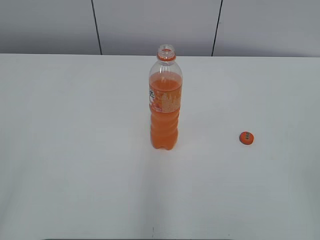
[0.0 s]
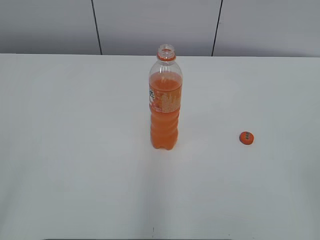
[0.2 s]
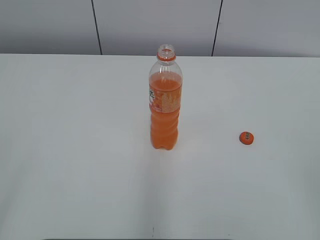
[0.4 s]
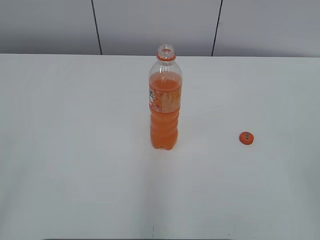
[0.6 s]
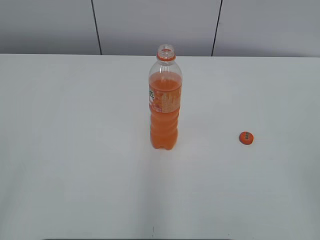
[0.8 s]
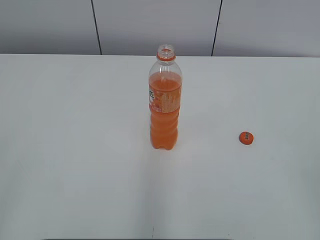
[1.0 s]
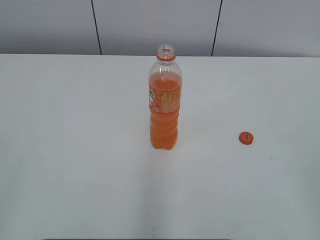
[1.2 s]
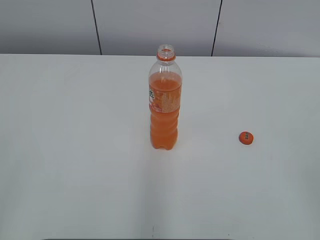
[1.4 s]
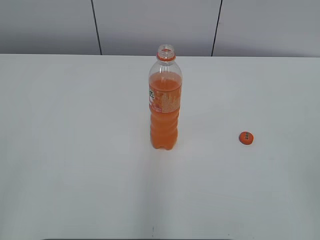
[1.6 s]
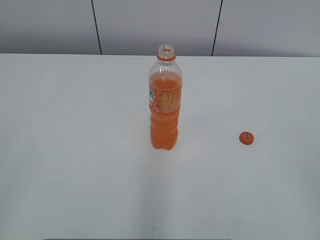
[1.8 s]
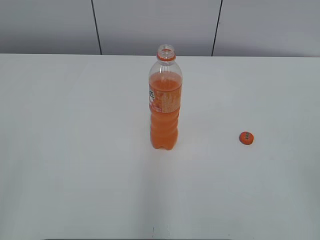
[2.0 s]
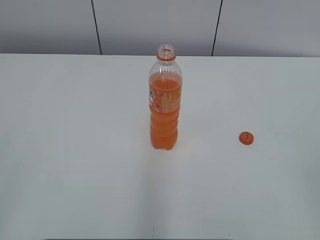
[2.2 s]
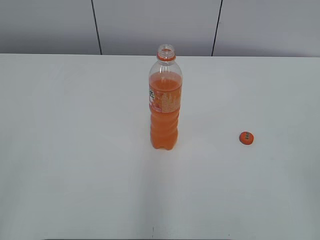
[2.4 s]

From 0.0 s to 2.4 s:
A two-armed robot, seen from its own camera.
From 1.2 s to 2.4 s: Both grippers stay about where they are.

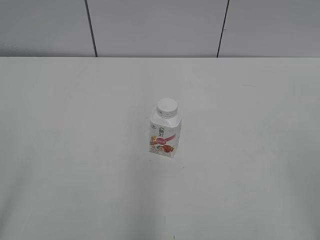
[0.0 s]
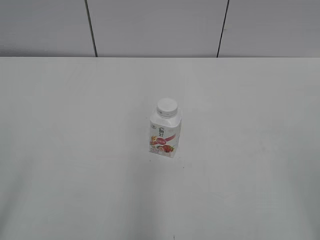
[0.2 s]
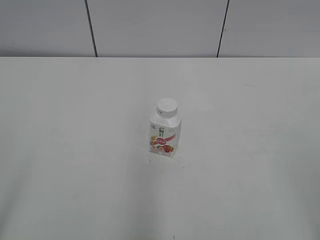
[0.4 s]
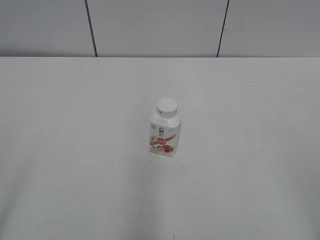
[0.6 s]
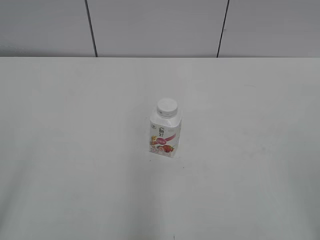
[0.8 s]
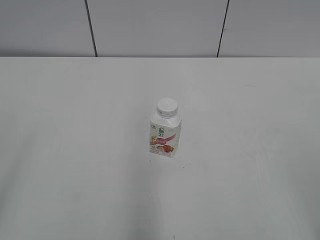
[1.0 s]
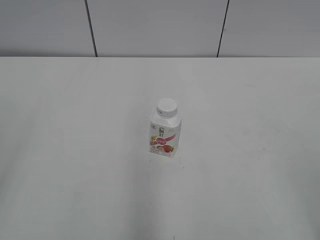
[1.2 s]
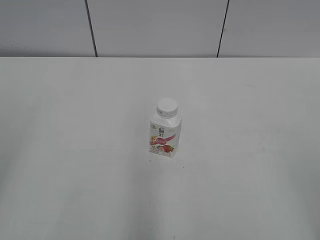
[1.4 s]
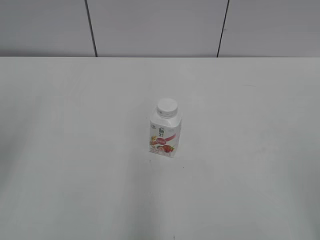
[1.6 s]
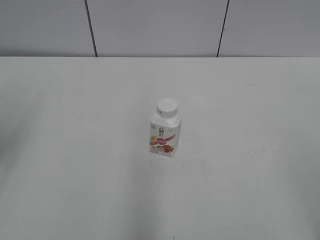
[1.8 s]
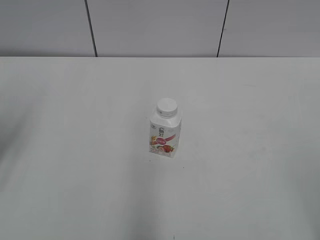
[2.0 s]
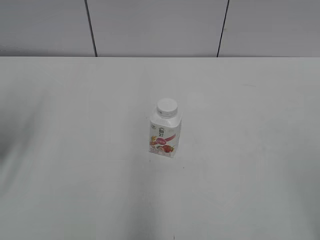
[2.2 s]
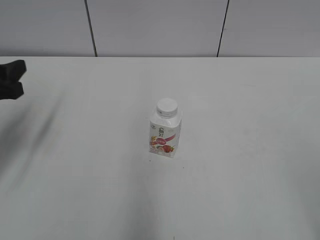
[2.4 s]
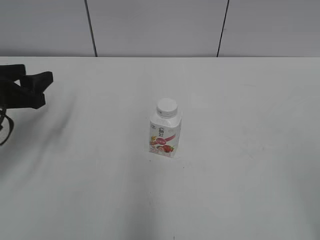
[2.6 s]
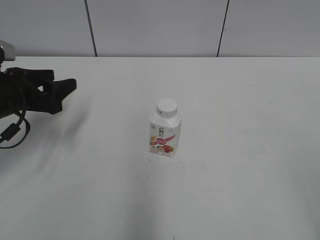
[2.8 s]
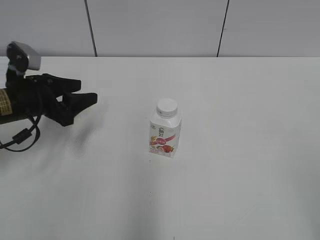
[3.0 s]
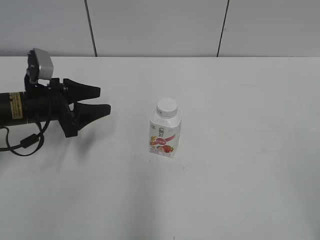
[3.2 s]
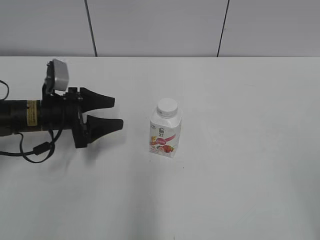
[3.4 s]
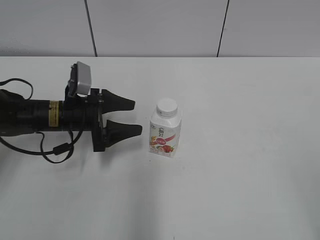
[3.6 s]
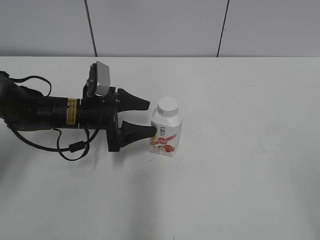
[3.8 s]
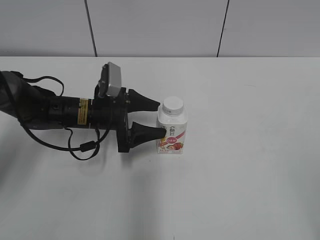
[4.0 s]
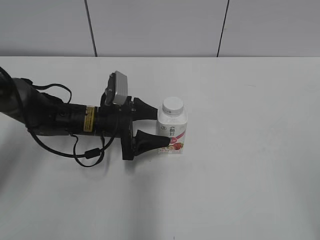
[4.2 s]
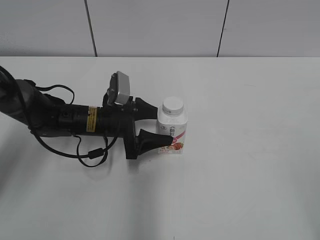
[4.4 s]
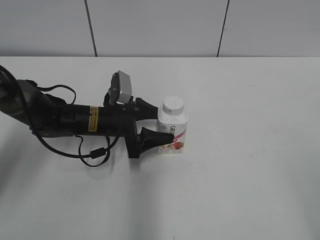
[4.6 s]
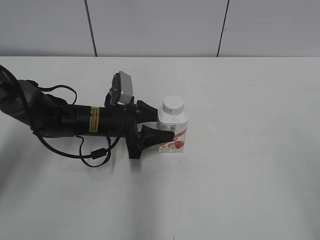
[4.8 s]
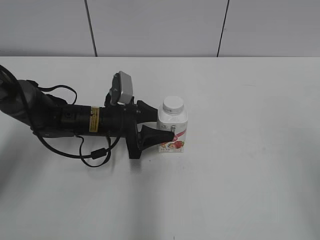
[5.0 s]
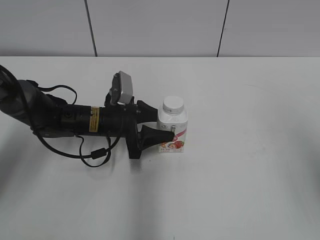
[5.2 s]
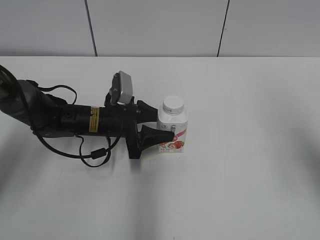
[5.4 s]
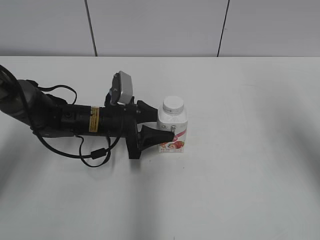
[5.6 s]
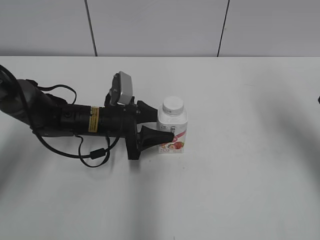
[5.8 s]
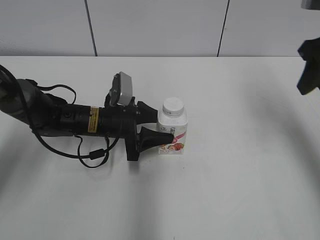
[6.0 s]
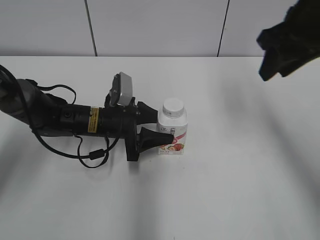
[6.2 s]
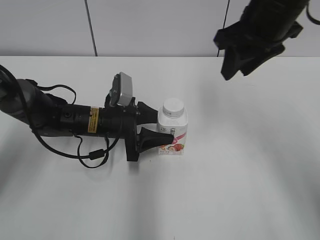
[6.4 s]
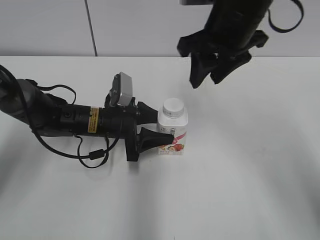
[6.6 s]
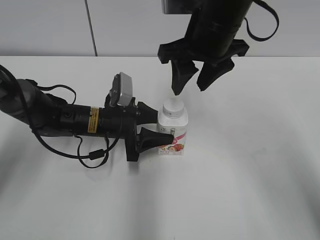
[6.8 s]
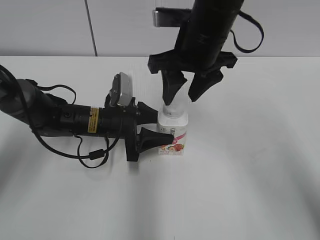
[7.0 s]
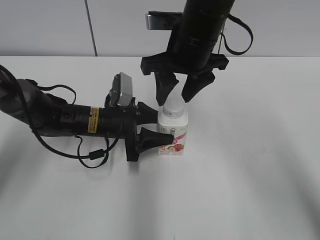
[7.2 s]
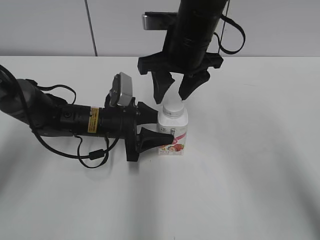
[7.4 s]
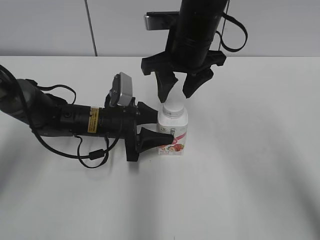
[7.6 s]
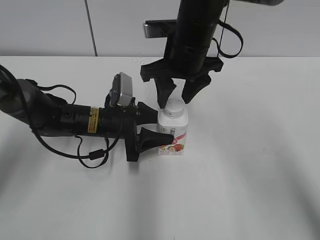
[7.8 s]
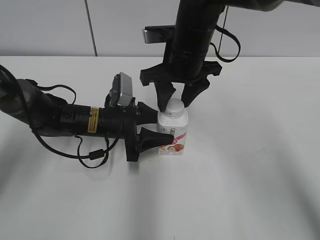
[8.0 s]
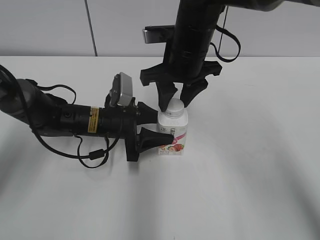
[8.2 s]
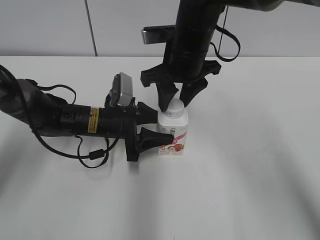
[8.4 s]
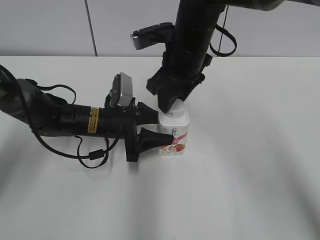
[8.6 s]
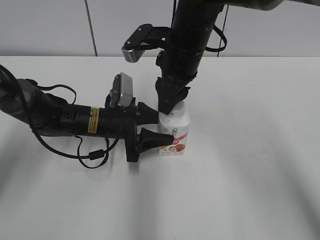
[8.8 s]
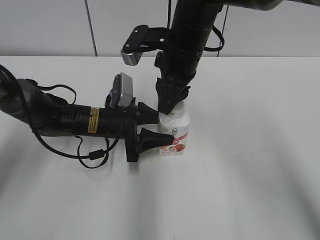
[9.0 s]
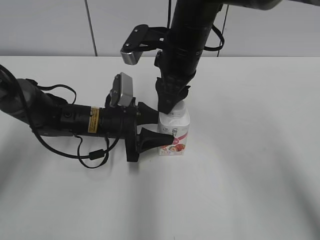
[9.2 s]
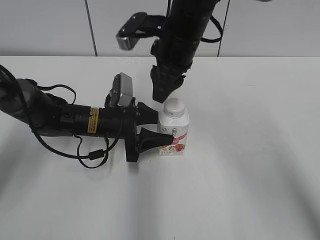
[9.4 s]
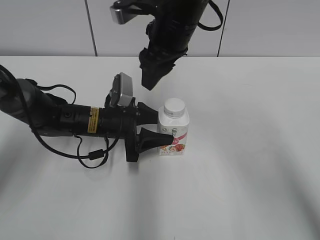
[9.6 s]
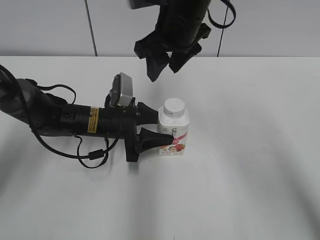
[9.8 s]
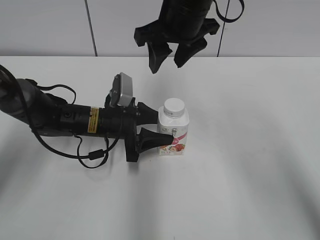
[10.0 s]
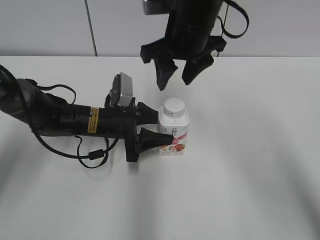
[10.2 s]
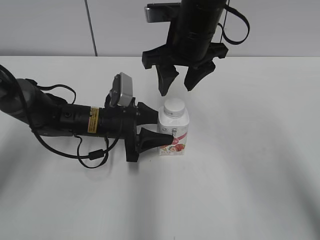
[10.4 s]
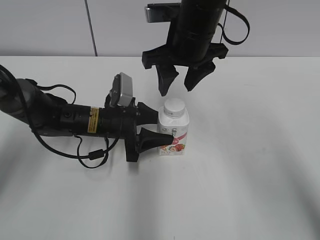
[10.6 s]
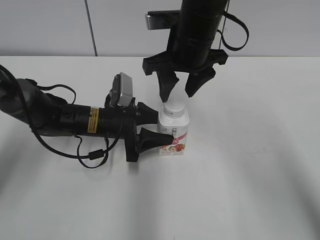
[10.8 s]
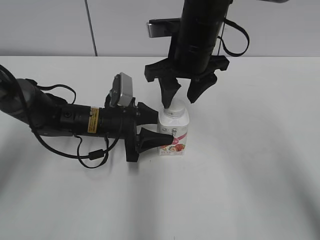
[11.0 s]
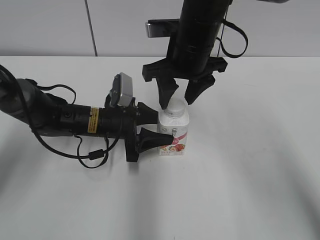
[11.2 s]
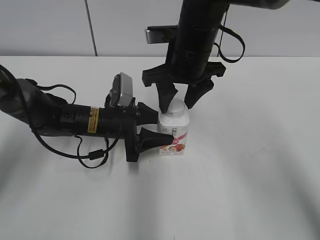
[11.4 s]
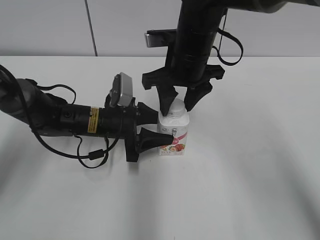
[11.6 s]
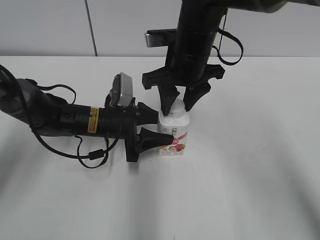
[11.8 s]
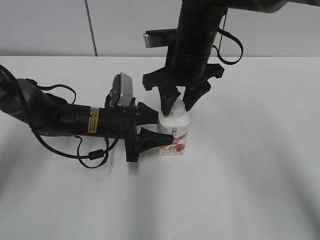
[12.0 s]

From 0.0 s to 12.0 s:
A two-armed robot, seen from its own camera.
Step, from 0.0 s to 5.2 s: Grab the Yili Changqing with the left hand.
From 1.6 s to 3.0 s: The left gripper goes some 25 cm forward and downward, and closes.
From 3.0 s to 4.4 s: The left gripper is displaced to the right and downward by about 15 cm, and opens.
From 4.4 s to 6.0 s: The right gripper moves forward, roughly 30 cm, and closes, while the left gripper closes up.
From 6.0 s to 7.6 s: The right gripper heads to the left, covering roughly 20 cm, and opens.
From 7.6 s to 9.0 s: The right gripper closes its fingers.
From 9.0 s to 10.4 s: The right gripper opens.
From 10.4 s to 12.0 s: The grippers stay close to where they were, moving slightly.

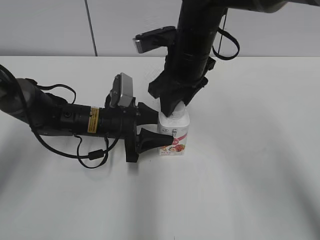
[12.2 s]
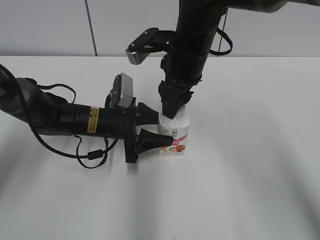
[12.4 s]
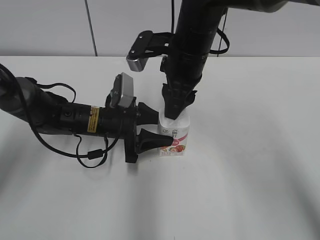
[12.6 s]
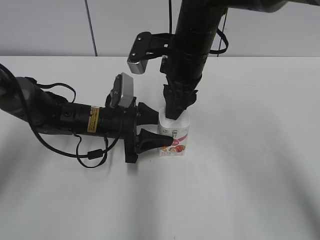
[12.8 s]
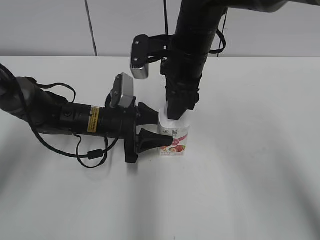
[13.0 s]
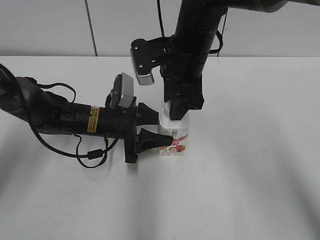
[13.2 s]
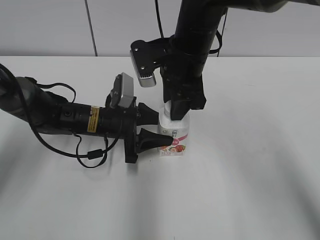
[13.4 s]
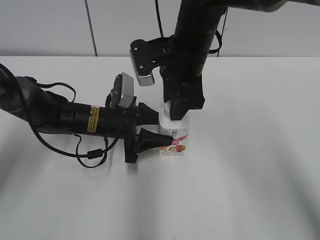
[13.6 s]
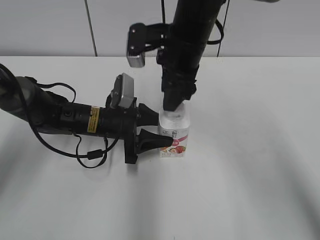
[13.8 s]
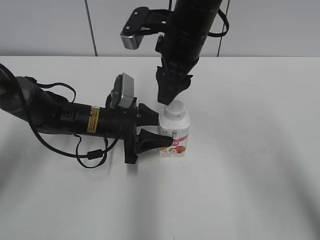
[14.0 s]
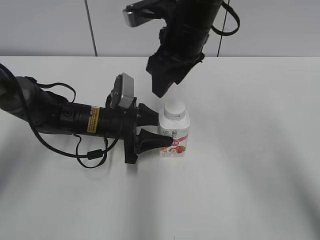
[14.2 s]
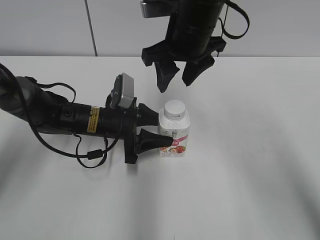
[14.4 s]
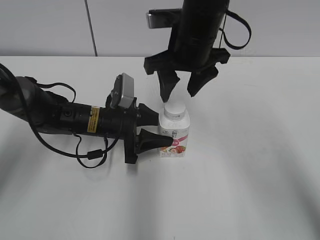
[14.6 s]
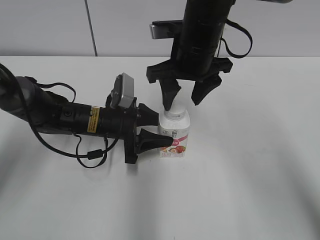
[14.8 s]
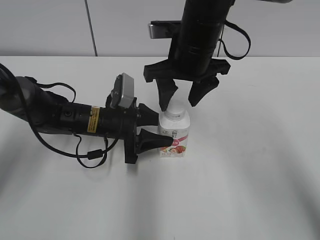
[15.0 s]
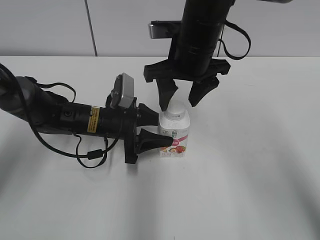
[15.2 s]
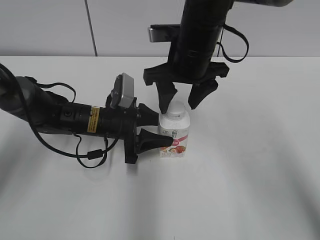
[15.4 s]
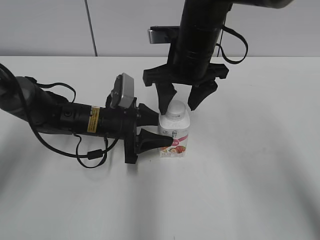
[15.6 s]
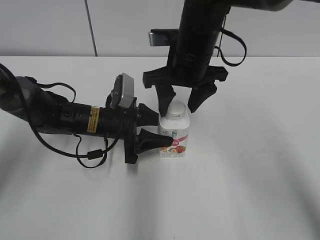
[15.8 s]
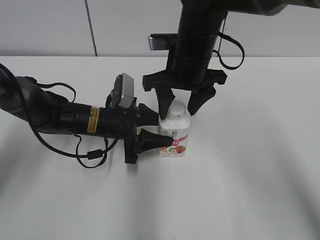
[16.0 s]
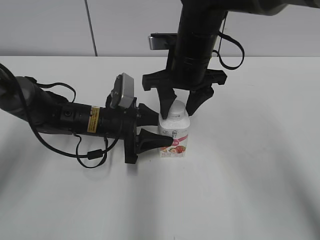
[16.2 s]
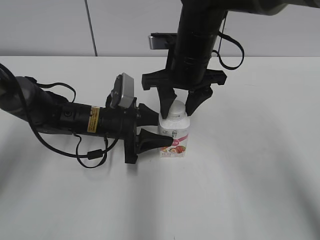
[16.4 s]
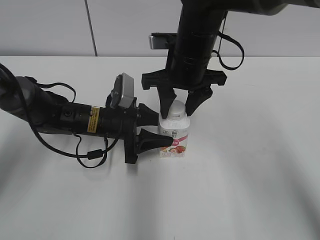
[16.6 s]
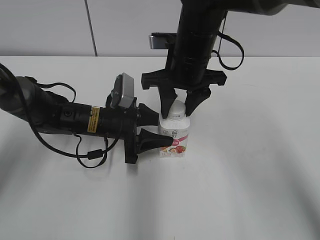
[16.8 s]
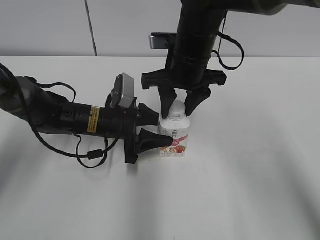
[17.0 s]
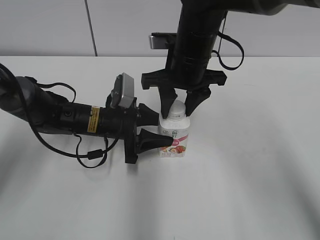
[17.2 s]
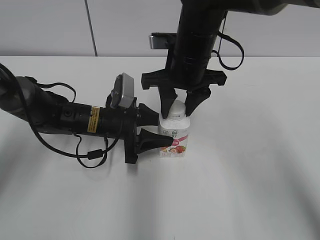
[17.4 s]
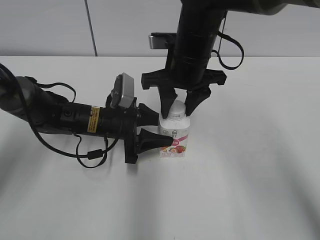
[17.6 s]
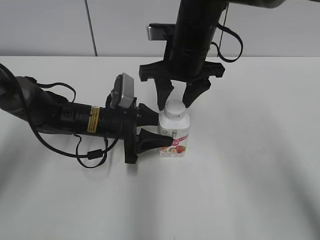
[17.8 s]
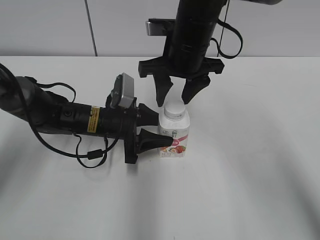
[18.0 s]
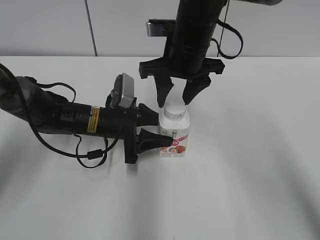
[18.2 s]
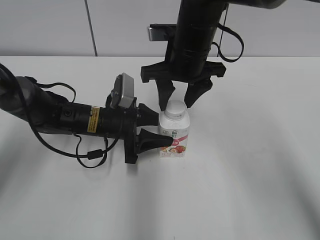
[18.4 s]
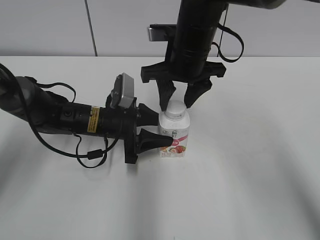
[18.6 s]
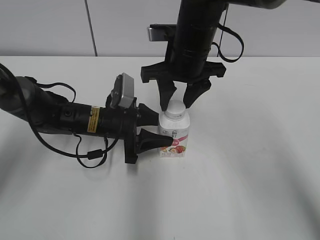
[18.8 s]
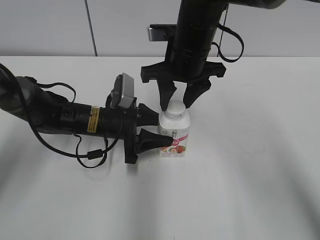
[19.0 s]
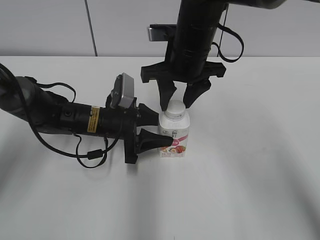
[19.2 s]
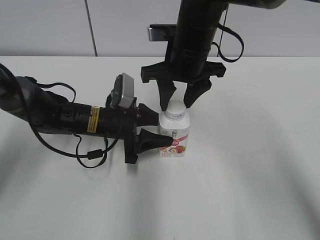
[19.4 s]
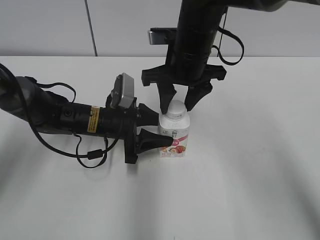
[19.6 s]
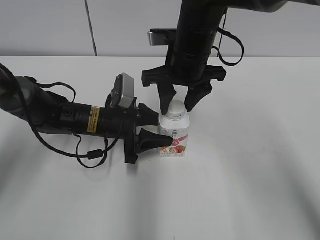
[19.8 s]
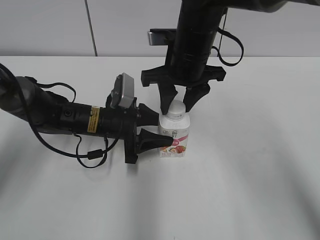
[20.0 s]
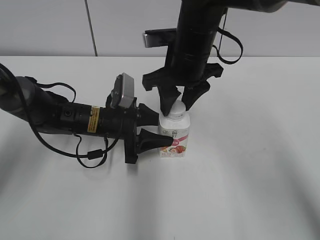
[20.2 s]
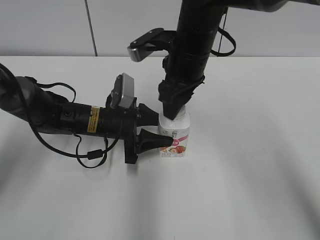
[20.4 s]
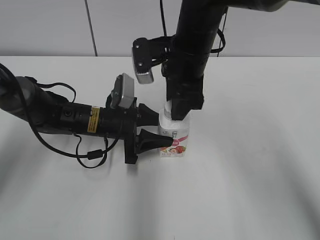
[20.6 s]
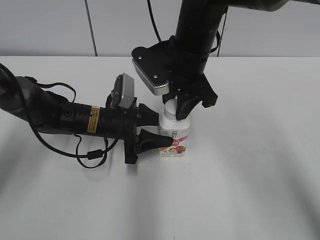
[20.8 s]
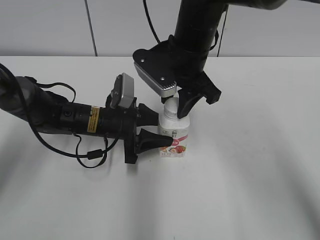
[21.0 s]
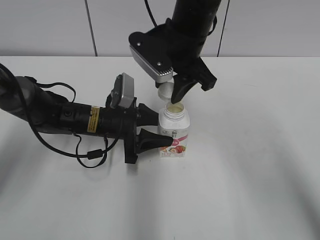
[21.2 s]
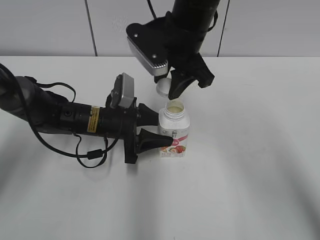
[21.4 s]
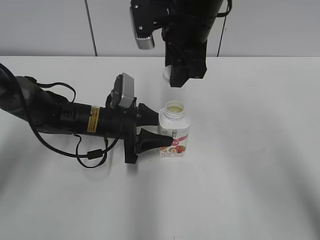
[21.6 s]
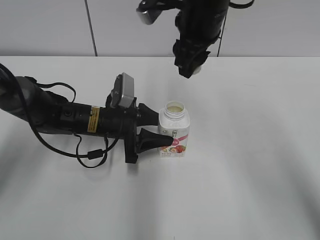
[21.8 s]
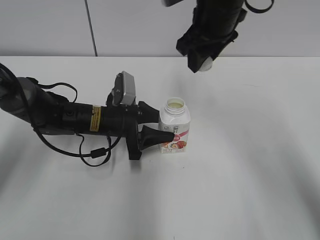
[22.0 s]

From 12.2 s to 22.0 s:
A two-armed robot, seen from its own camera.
From 13.6 s to 15.0 s: The right gripper opens.
From 15.0 s to 16.4 s: The grippers move only a little.
From 16.4 s to 17.8 s: Neither gripper changes place.
From 17.8 s to 19.2 s: Both grippers stay about where they are.
From 20.6 s to 22.0 s: The right gripper travels upward by about 5 cm.
